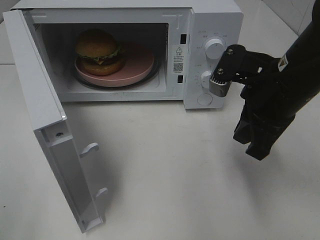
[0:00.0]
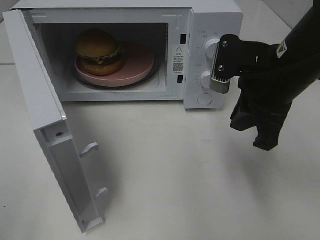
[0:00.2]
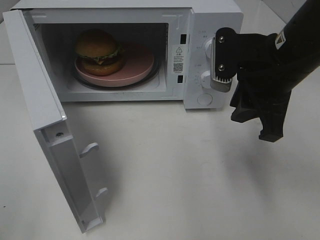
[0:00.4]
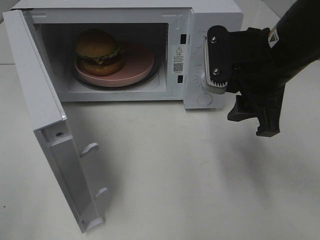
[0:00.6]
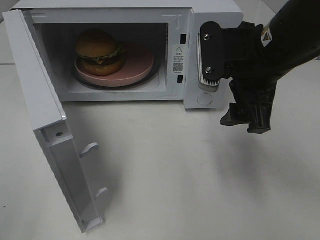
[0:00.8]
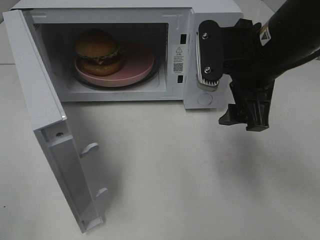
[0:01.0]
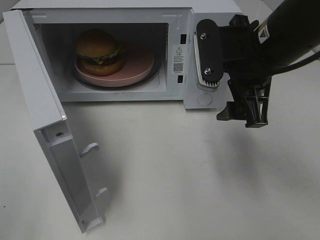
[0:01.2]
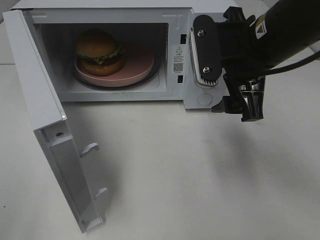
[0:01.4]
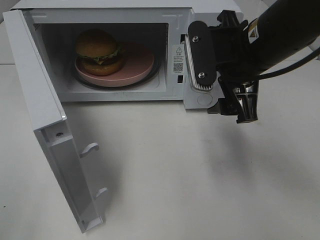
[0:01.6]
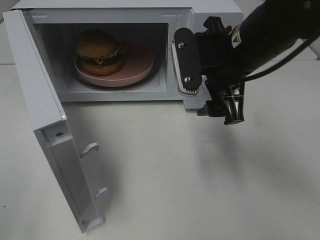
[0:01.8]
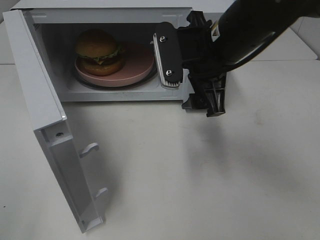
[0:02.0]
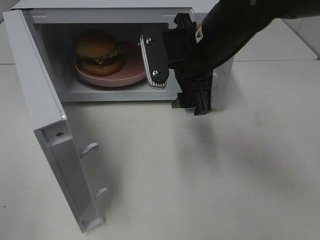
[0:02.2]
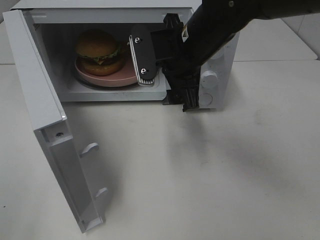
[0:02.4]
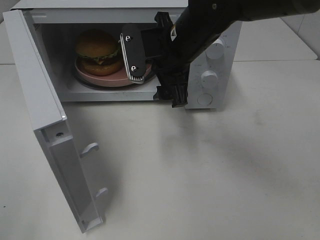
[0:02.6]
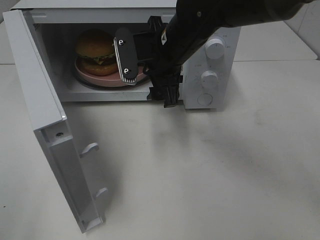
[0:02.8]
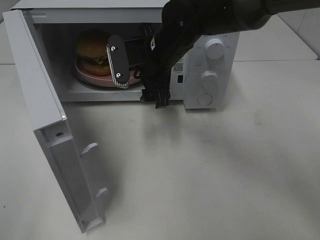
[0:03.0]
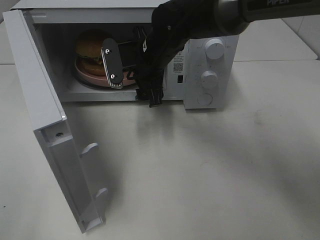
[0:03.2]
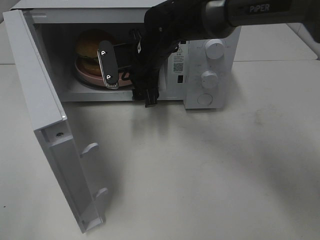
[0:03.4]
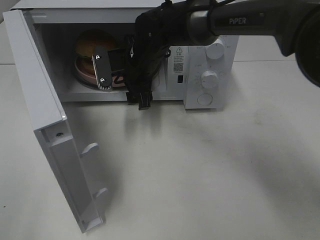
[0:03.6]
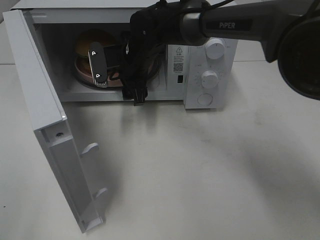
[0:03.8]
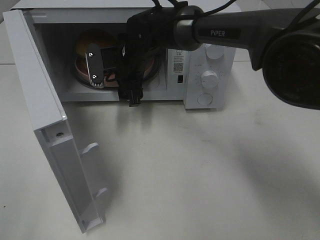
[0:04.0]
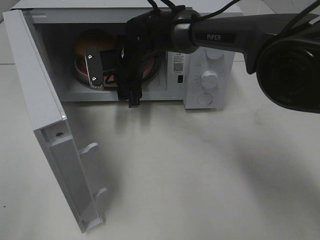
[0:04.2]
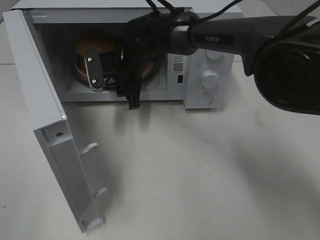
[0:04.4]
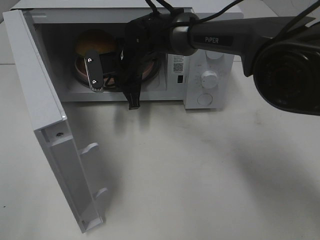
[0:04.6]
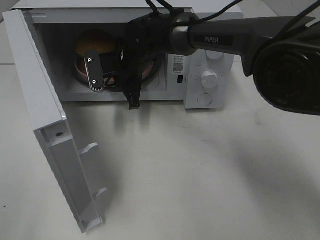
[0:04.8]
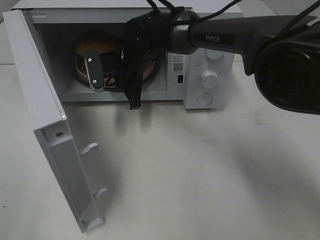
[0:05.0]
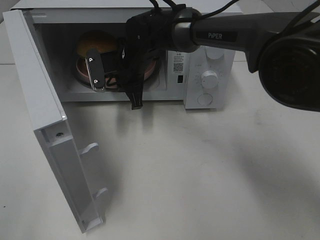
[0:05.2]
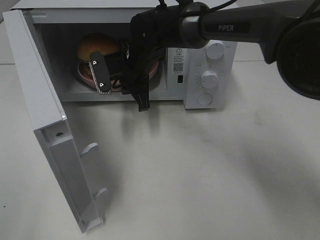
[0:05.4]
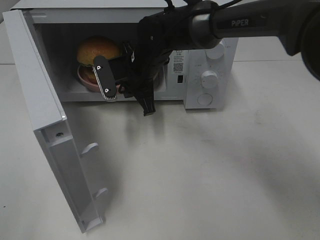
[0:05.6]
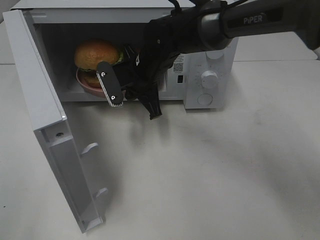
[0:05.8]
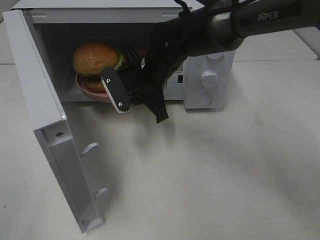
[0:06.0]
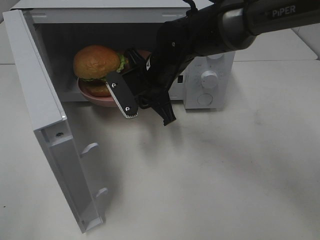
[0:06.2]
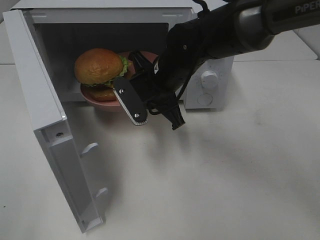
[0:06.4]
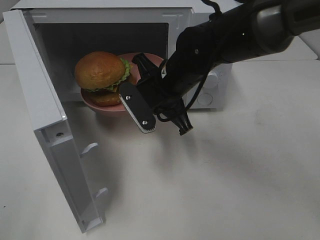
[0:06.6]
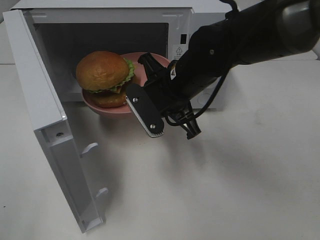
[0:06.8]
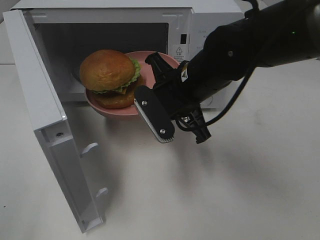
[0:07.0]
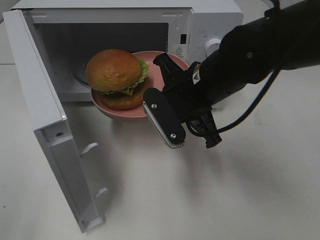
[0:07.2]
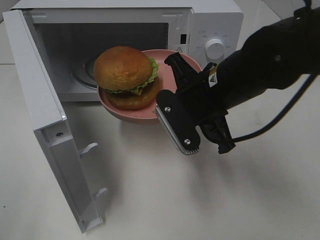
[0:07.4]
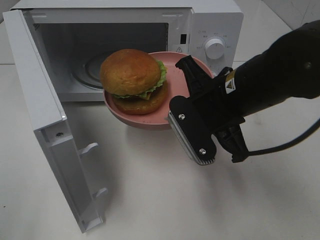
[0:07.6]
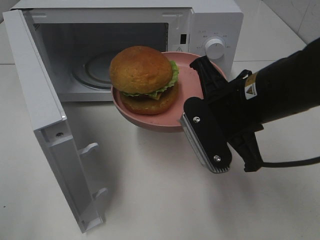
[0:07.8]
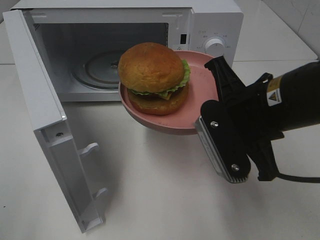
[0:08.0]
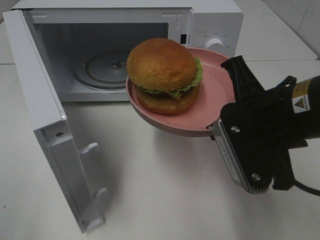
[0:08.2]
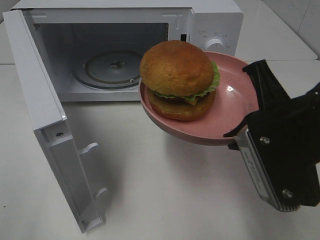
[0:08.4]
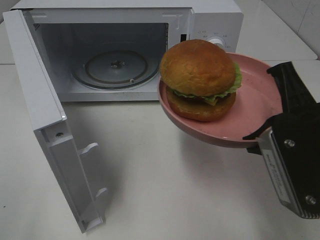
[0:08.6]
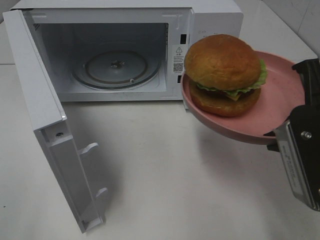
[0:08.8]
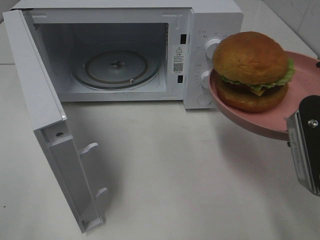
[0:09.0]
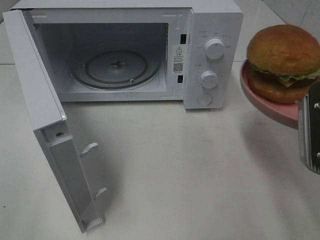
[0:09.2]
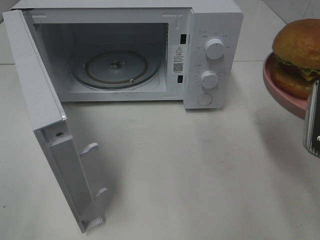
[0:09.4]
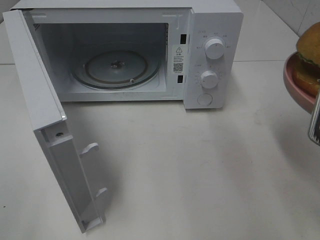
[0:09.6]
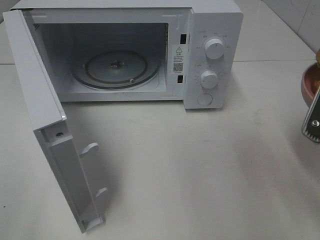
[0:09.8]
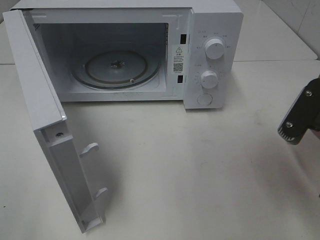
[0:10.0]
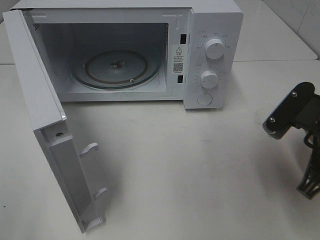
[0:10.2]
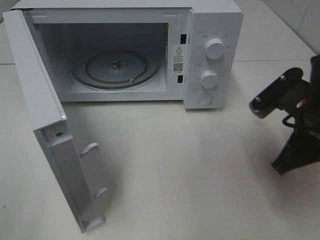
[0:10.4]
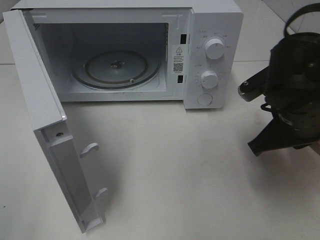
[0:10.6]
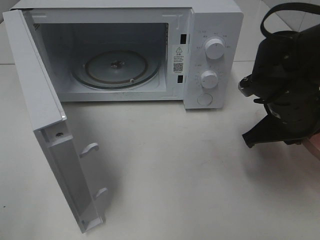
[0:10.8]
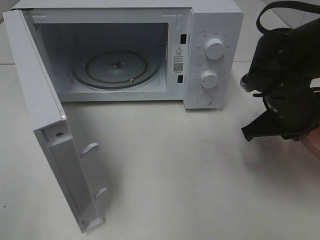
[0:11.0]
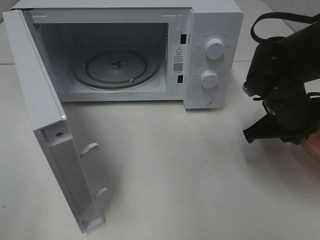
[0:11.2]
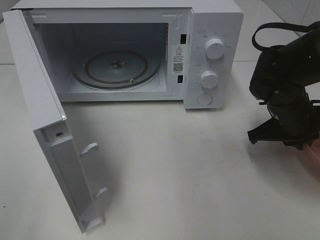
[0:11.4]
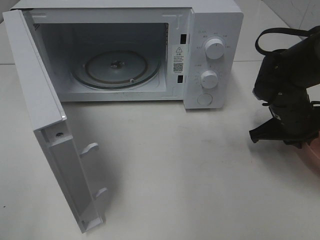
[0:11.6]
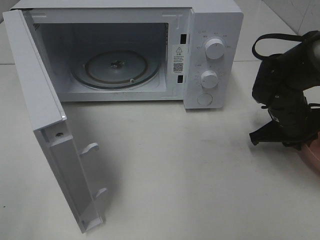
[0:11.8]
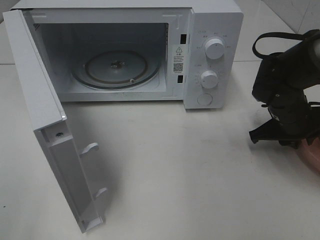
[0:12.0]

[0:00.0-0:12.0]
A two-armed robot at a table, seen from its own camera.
Task of the whole recording: Heat the burger.
Step, 0:00.0 to 0:04.6: Right hand: grab the plate with the hamburger.
0:00.0 to 0:01.6: The right gripper moves roughly 5 cm, and opens.
0:01.6 to 0:03.0: The right gripper is displaced to the left, forward and downward by roughly 15 cm.
0:03.0 to 0:04.4: The right gripper is displaced forward, to the left and downward by roughly 10 cm, and closes its fingers.
0:04.4 to 0:06.0: The right gripper is displaced backward by approximately 5 cm, and closes.
0:06.0 to 0:07.6: The right gripper moves backward and to the right, approximately 15 cm.
0:07.6 to 0:09.0: The right gripper shifts roughly 15 cm to the right and backward.
0:09.0 to 0:10.4: The right gripper heads forward and downward, covering roughly 10 cm.
0:10.4 to 0:12.0: The right gripper heads forward and downward, covering roughly 15 cm.

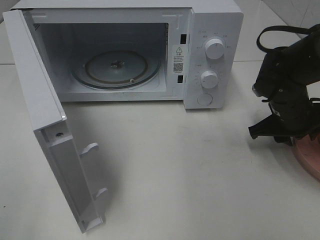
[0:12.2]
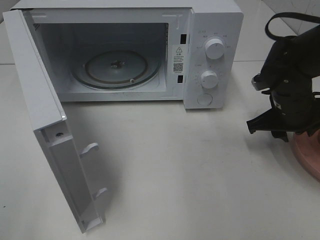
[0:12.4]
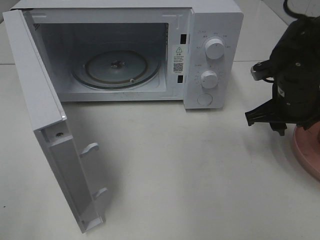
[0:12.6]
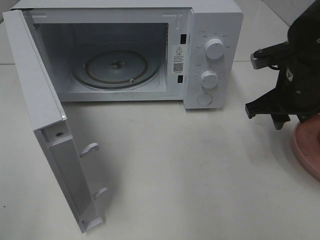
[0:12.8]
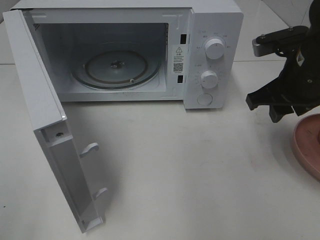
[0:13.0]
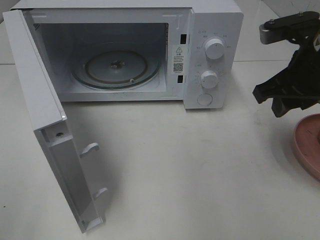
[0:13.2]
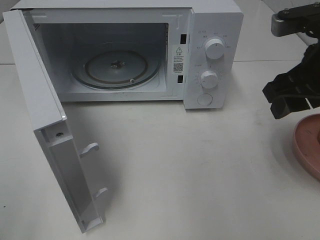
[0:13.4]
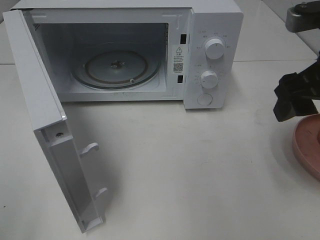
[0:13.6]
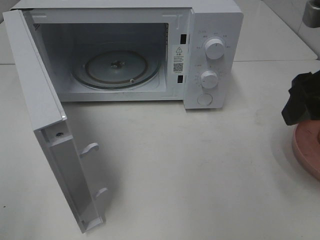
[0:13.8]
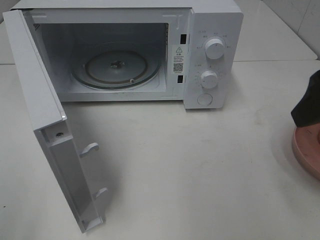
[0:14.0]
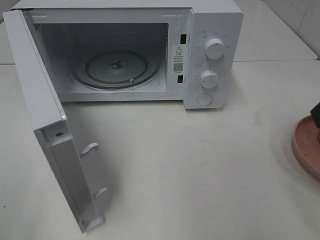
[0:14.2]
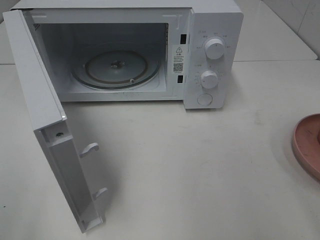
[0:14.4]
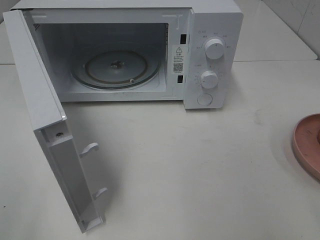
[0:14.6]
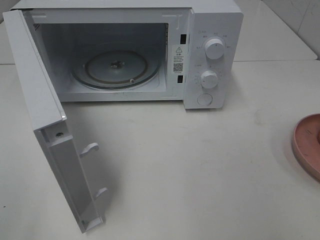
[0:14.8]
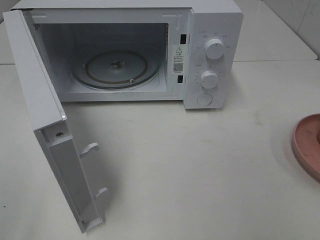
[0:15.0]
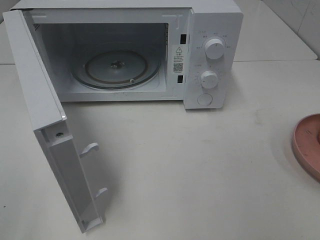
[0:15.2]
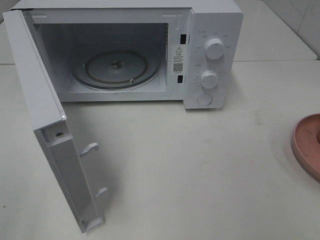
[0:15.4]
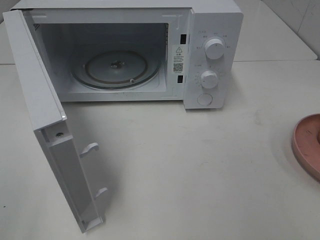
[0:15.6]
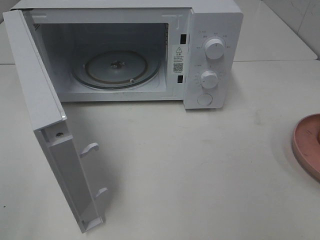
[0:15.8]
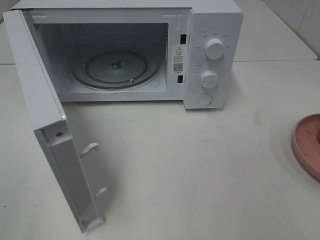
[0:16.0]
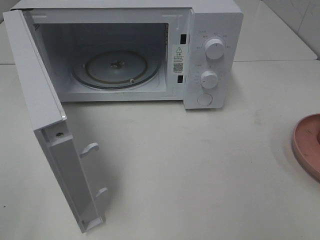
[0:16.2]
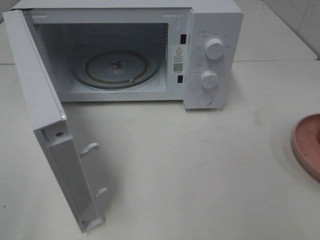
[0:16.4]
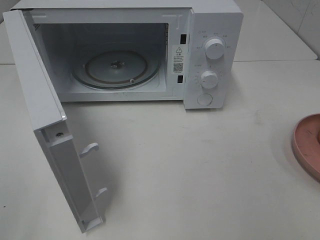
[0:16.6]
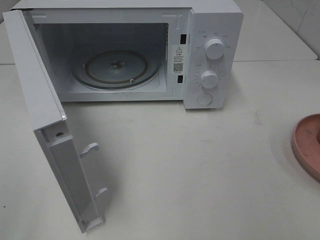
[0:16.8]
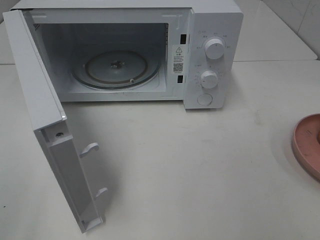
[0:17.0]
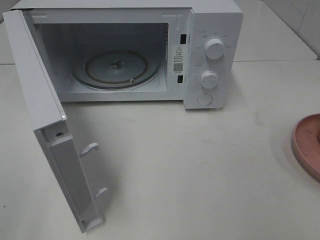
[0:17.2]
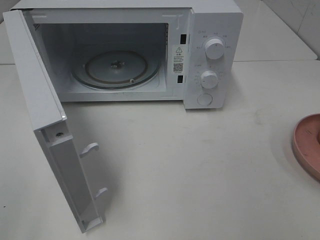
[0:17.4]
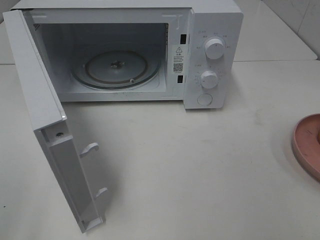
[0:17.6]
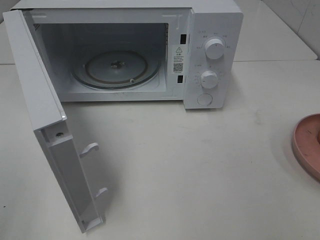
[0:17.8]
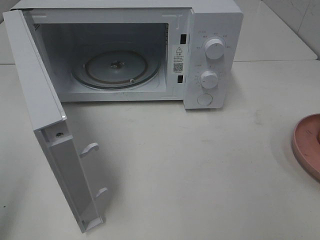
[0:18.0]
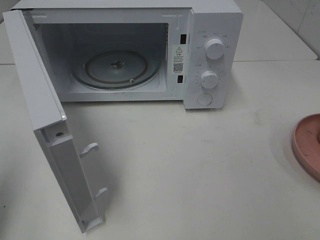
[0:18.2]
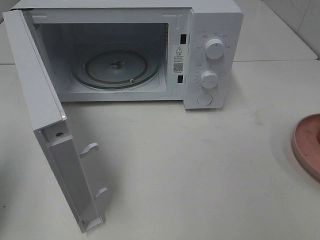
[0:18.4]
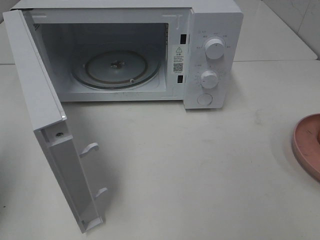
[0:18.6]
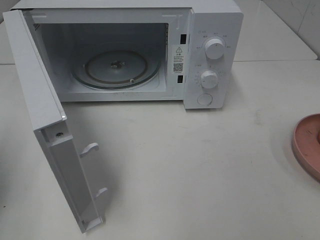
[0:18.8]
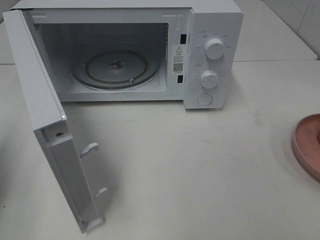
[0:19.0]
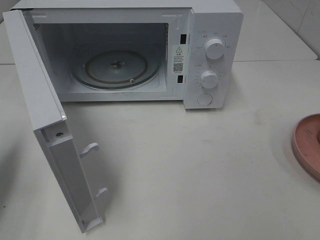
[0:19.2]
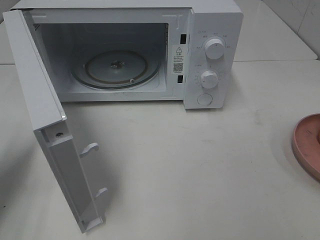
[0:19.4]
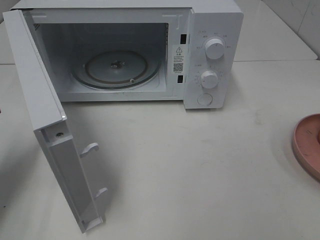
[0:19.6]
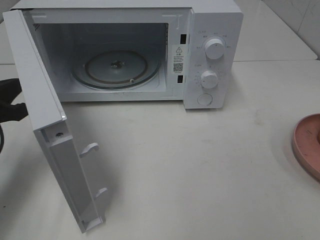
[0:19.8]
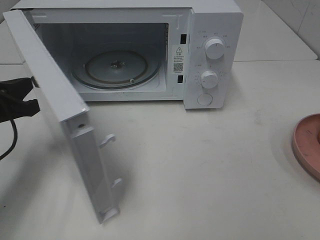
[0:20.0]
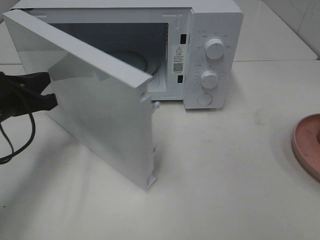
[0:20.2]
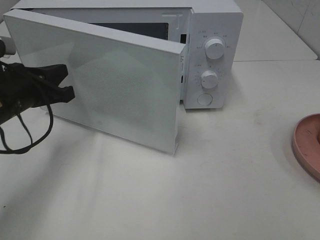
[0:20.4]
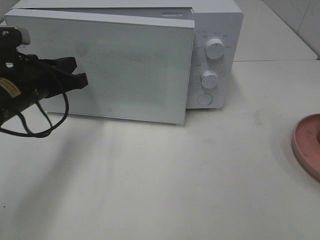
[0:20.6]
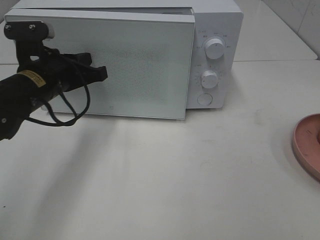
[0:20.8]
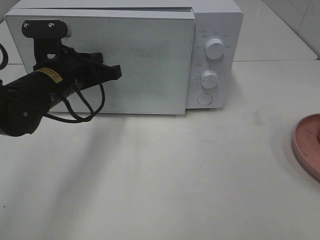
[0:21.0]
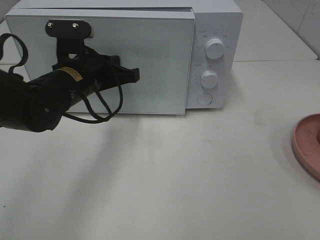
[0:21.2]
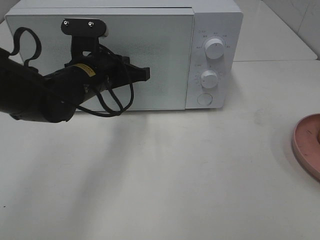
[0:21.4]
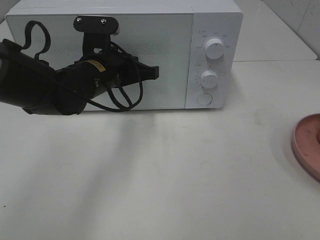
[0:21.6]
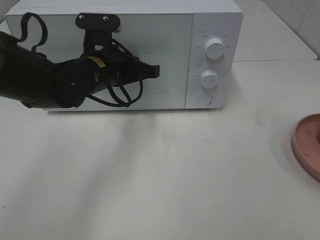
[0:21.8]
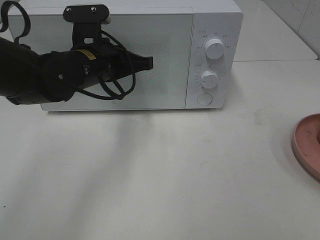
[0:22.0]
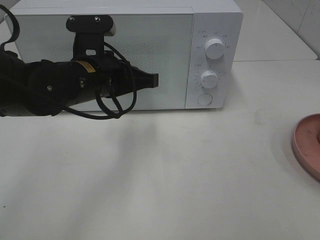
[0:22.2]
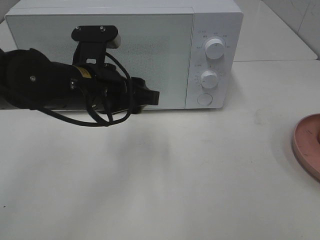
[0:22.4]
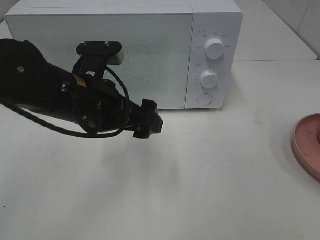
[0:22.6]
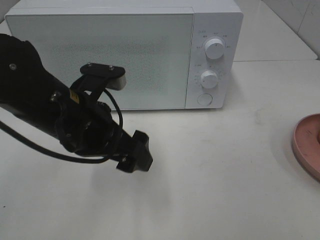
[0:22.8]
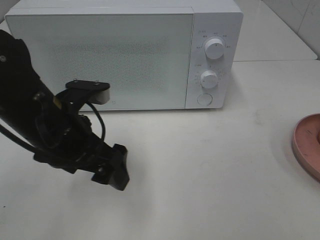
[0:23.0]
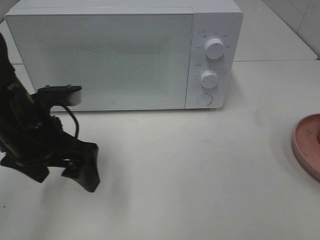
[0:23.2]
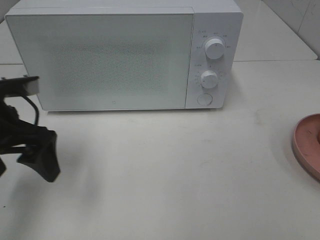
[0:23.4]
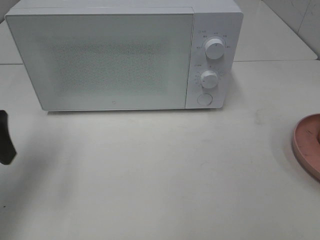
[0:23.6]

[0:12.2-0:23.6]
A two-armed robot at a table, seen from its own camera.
Task of the whole recording: Heat the burger.
Step, 0:12.8 to 0:22.2: Left hand: close the microwave door.
0:12.2 to 0:13.6: The right gripper heads upward and backward, covering about 20 cm, and opens.
0:13.6 to 0:15.0: The right gripper goes roughly 20 cm backward.
0:17.8 to 0:19.4: The left gripper is displaced forward and downward by some 20 cm, and closes its fingers.
0:19.4 to 0:20.8: The left gripper shifts approximately 20 cm to the right and forward.
0:20.8 to 0:22.2: The left gripper travels to the right by about 5 cm.
0:22.2 to 0:23.6: The left gripper heads to the left, covering approximately 20 cm, and opens its fingers.
